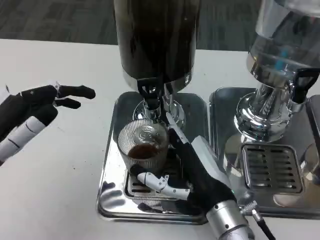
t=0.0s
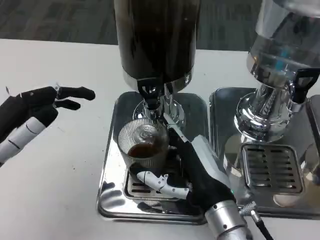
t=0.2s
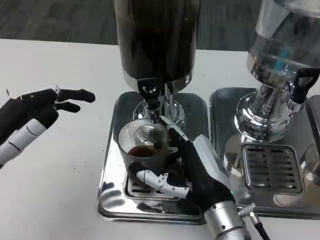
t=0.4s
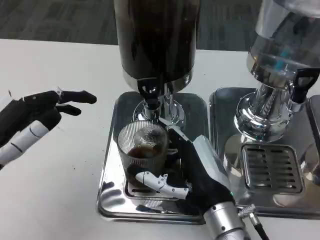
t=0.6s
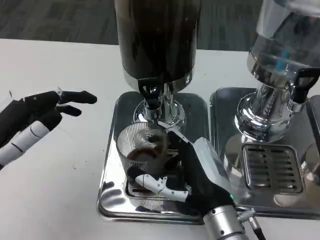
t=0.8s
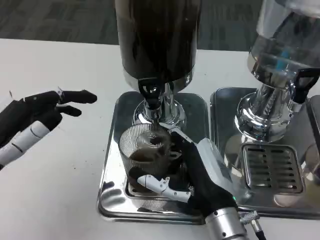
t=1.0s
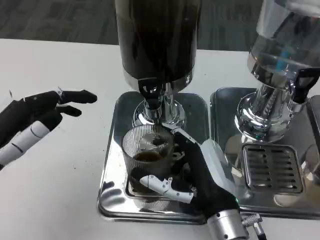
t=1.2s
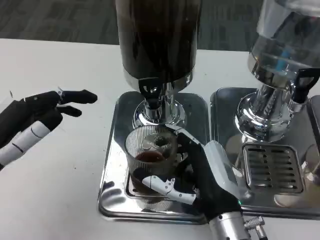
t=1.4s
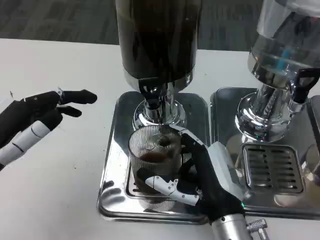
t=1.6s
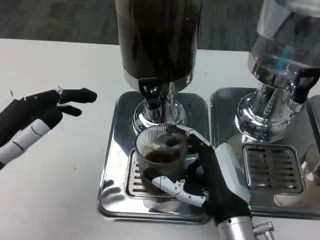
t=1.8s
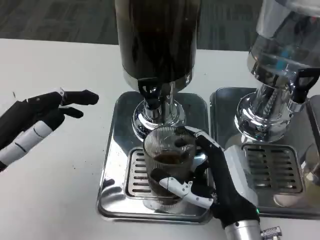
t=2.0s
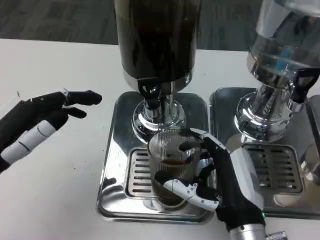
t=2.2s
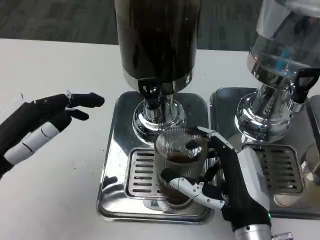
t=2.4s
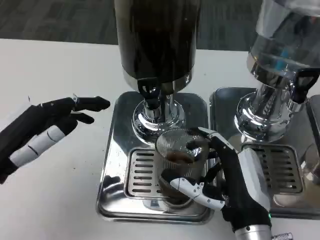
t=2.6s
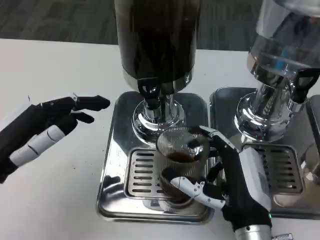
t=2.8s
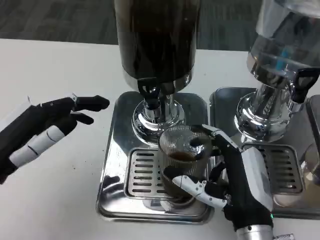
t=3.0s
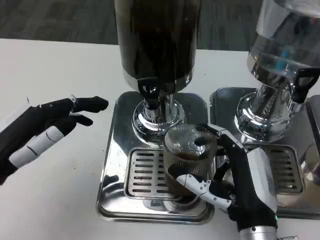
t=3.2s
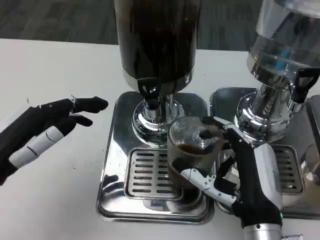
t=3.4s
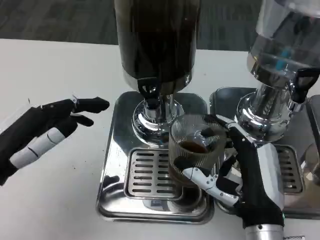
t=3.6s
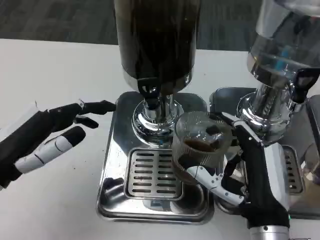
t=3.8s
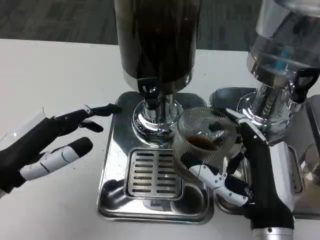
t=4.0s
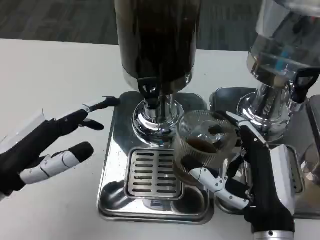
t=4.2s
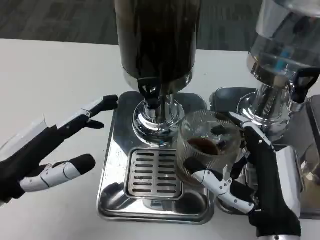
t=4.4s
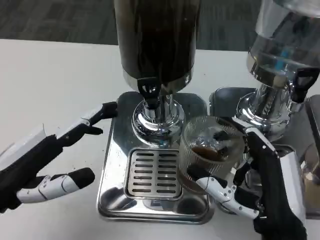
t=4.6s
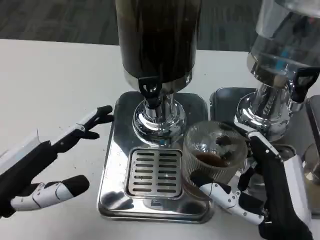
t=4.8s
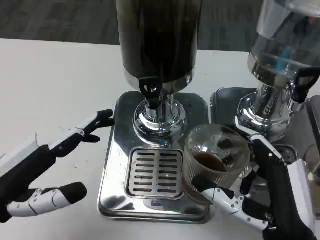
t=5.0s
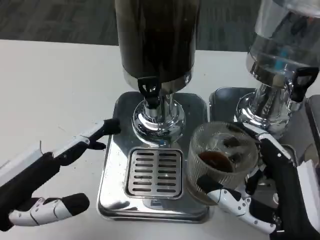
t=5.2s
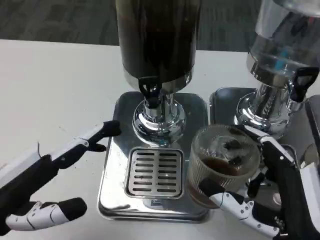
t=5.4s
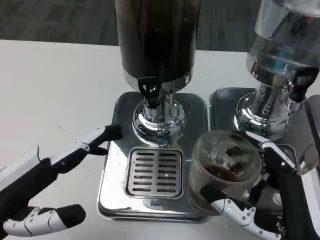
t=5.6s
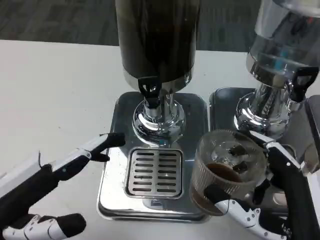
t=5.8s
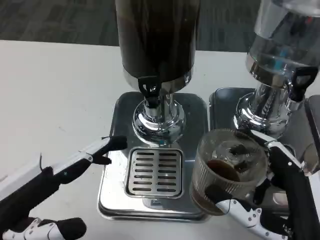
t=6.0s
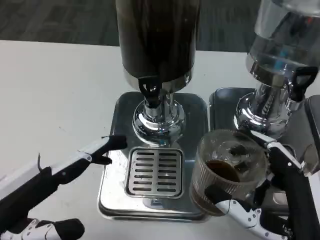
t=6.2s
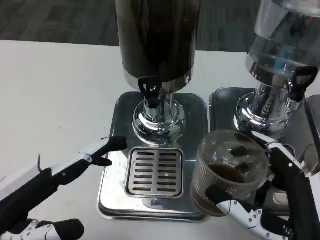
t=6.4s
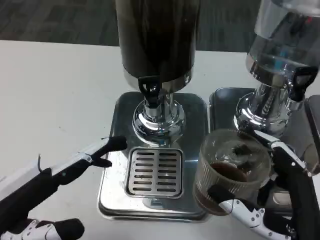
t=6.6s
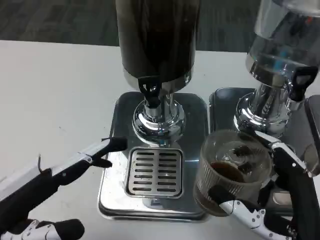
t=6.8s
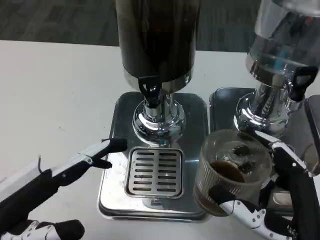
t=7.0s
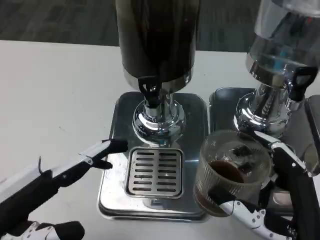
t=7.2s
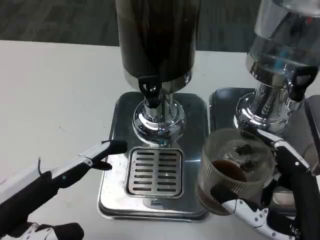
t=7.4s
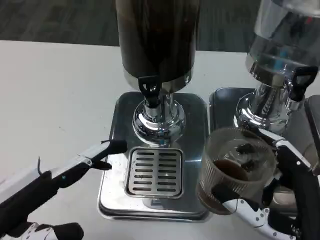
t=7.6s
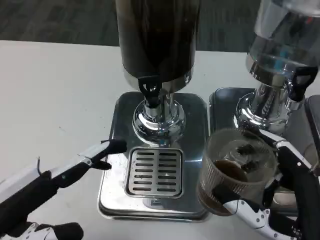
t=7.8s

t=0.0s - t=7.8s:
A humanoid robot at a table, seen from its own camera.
Task of the whole recording: Grasp the cup under the faucet to collect the drink, then remove the cup.
t=0.0s - t=1.6s: There are only small adjustments of the hands.
t=6.2s - t=7.8s: Neither hand changes place.

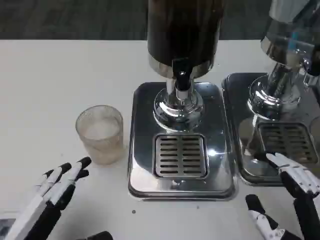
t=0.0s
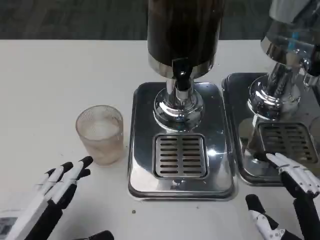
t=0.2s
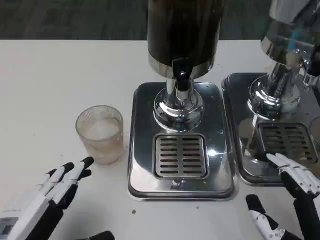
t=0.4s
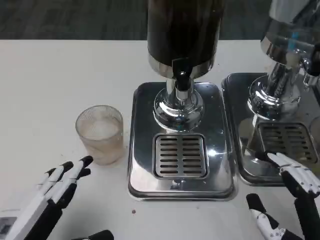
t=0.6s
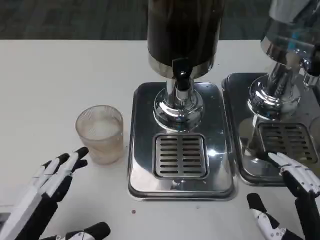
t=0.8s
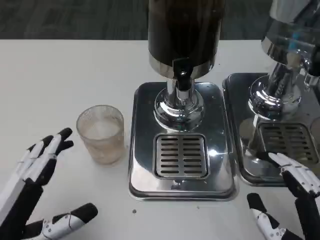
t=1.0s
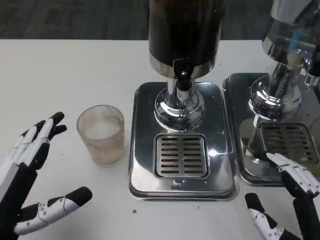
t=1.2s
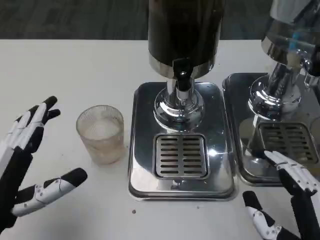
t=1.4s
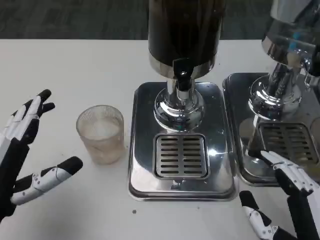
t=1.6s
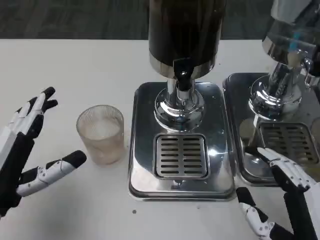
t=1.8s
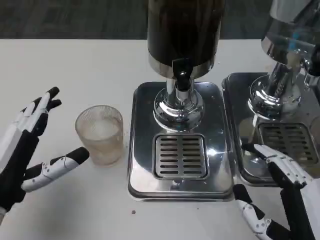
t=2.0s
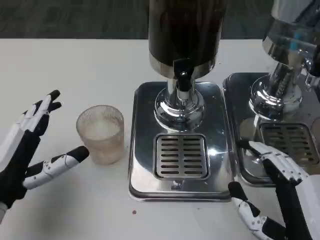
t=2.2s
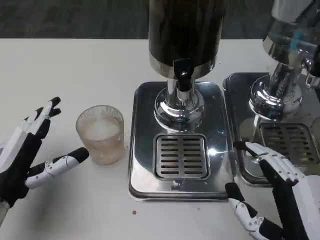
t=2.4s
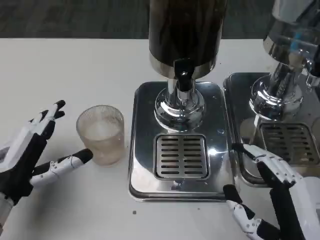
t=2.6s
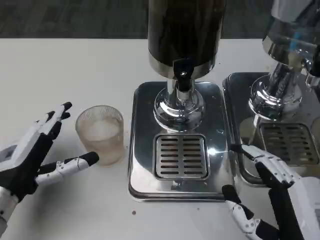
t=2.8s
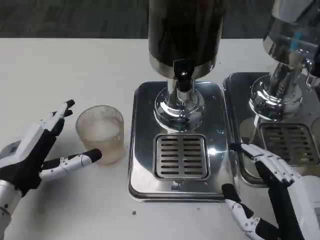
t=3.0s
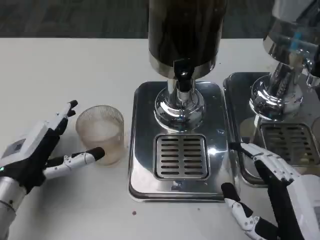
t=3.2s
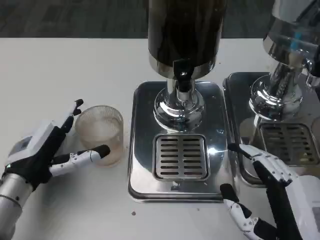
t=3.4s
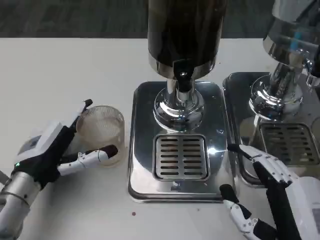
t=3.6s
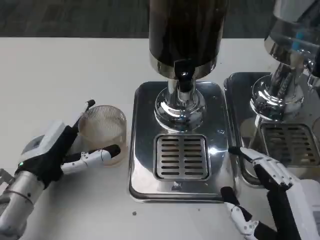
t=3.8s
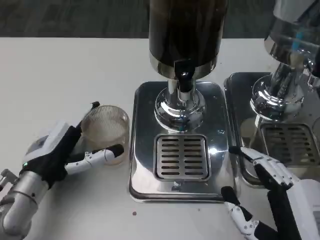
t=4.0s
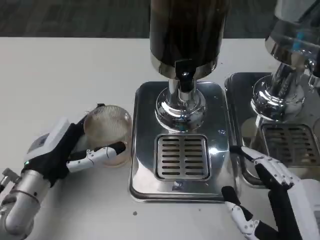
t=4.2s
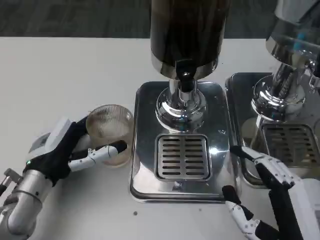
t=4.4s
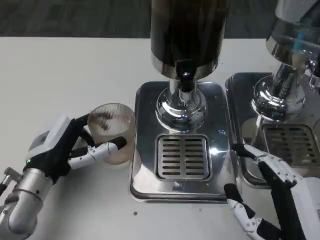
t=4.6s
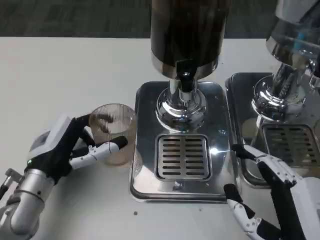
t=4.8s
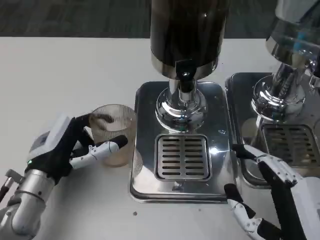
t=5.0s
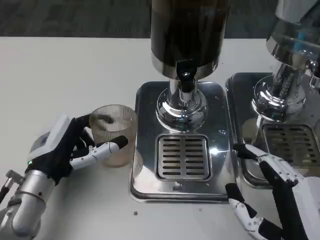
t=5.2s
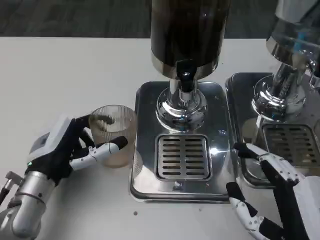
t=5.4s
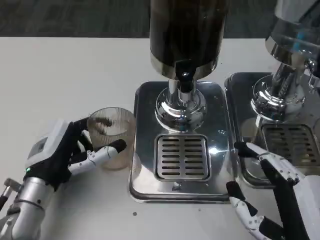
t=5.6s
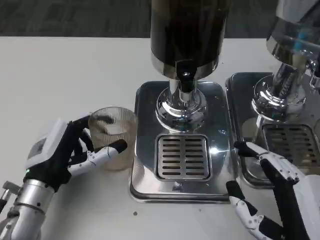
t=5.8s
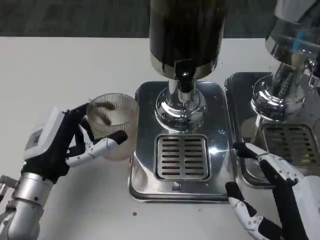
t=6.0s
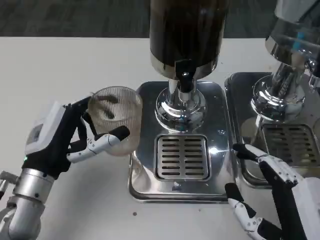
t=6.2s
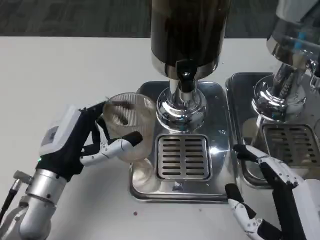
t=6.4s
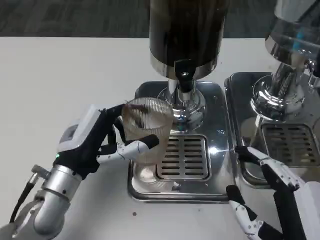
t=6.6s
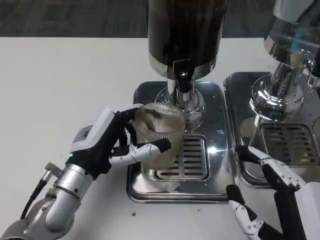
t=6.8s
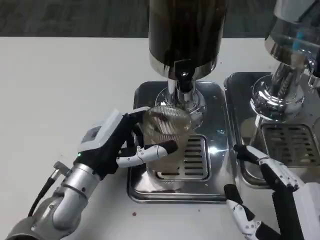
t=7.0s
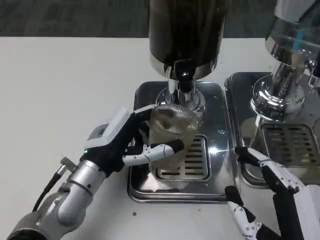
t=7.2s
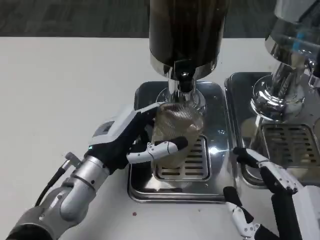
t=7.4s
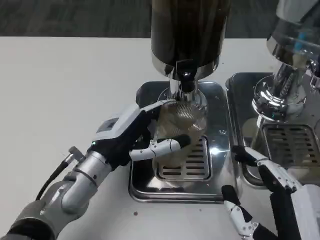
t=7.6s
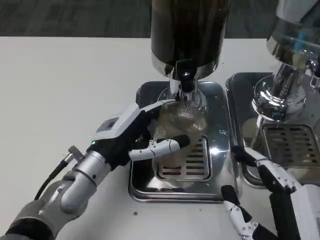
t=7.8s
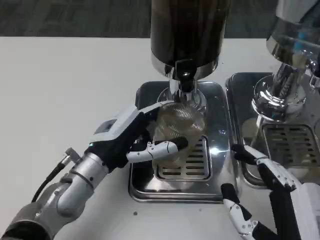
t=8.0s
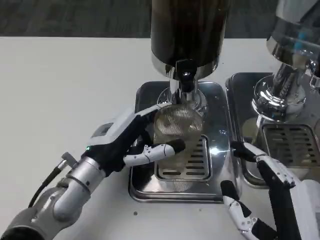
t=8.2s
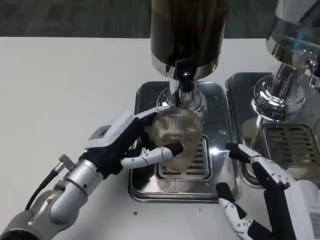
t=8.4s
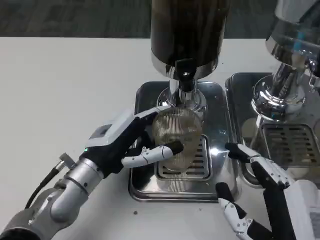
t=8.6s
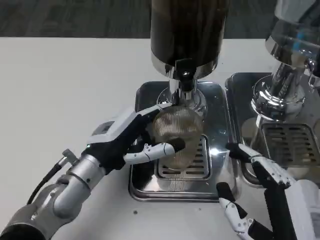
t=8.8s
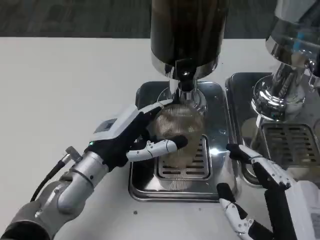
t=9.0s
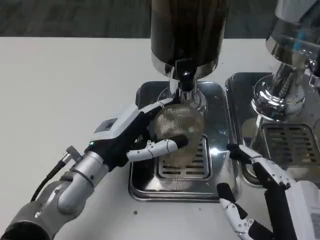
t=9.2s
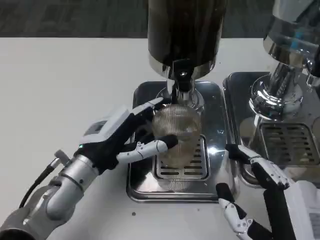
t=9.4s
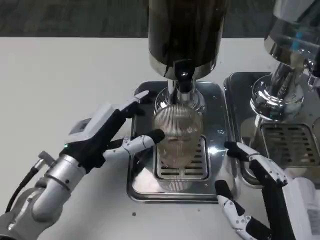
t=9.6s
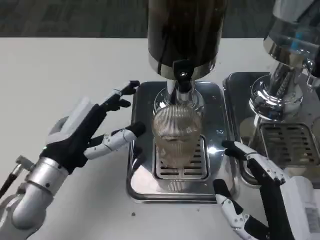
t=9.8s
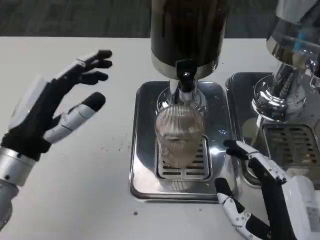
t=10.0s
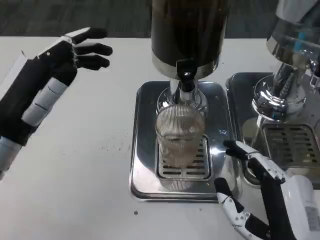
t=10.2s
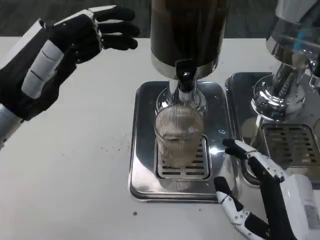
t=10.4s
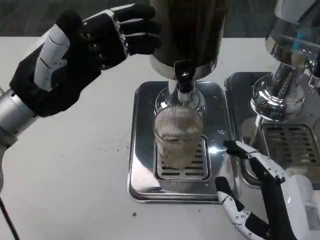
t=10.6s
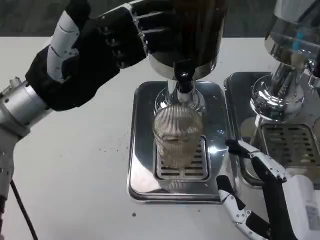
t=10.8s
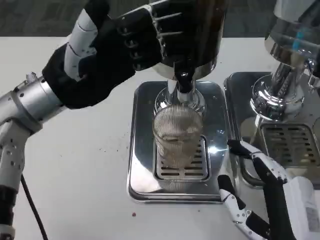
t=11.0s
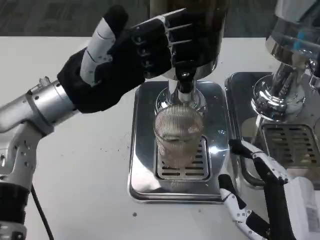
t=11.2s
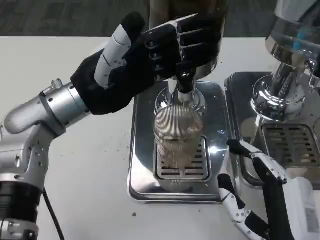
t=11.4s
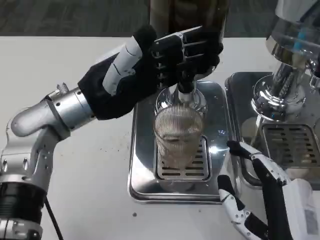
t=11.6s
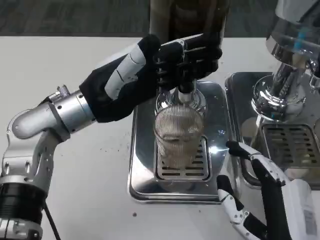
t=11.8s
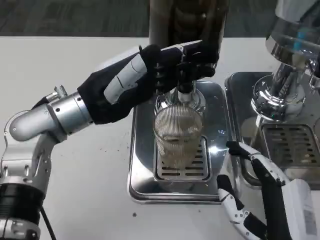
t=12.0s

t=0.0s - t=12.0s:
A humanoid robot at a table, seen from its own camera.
Task of the whole recording: Grasp the cup under the faucet to collect the drink, then remove the cup.
t=0.0s - t=1.6s: The left hand is displaced forward by some 5 cm.
t=1.6s - t=3.0s: The left hand travels forward by about 5 cm.
t=4.4s - t=6.0s: The hands move only a little.
t=6.0s - t=7.6s: The left hand moves to the right, approximately 5 cm.
t=7.6s - t=9.0s: The hands stay close to where they were, moving slightly.
t=9.0s - t=10.4s: The left hand is displaced upward and to the left by some 15 cm.
t=10.4s - t=12.0s: The left hand goes about 5 cm to the right.

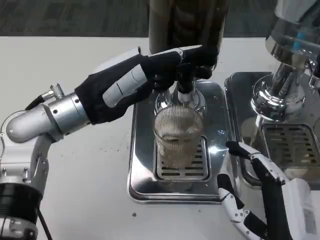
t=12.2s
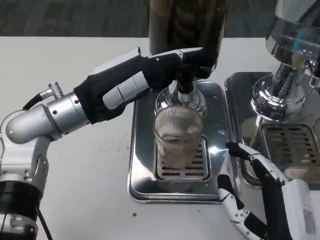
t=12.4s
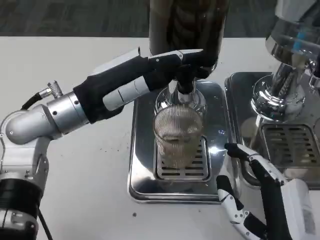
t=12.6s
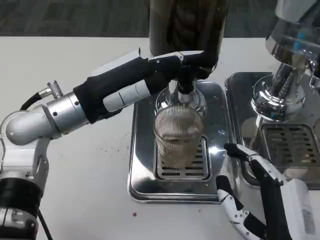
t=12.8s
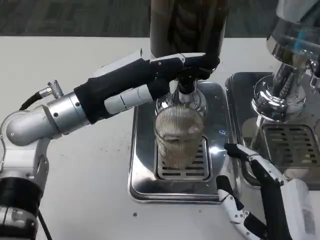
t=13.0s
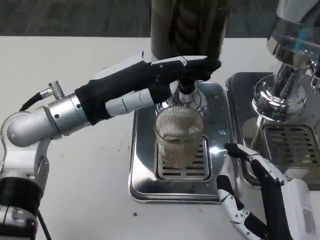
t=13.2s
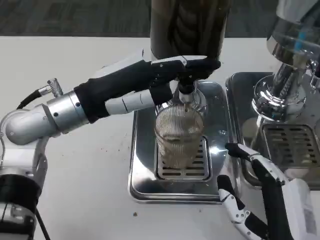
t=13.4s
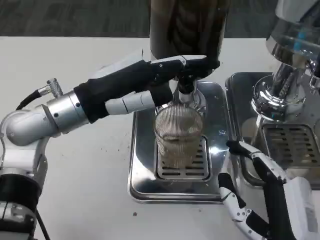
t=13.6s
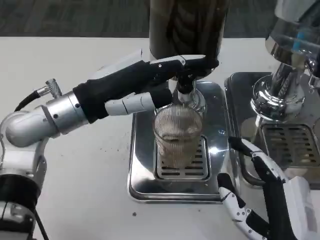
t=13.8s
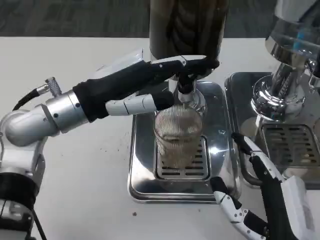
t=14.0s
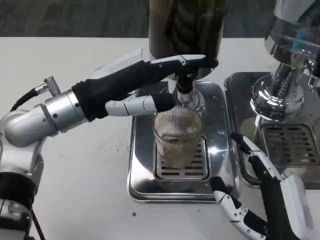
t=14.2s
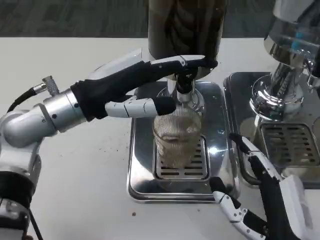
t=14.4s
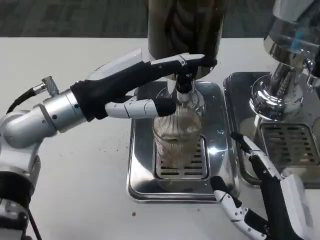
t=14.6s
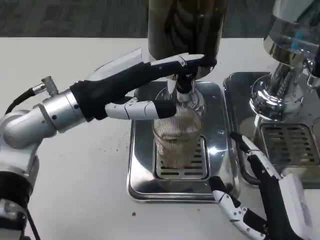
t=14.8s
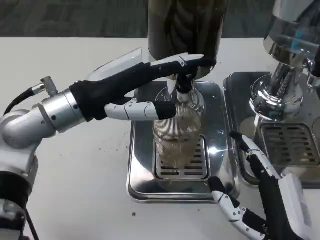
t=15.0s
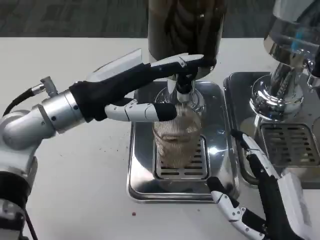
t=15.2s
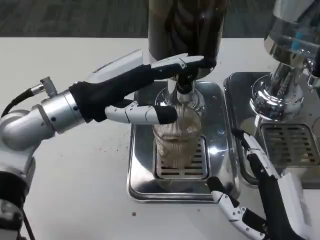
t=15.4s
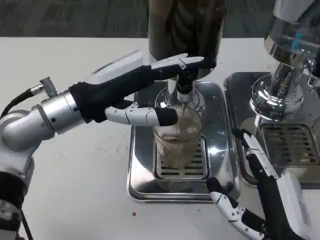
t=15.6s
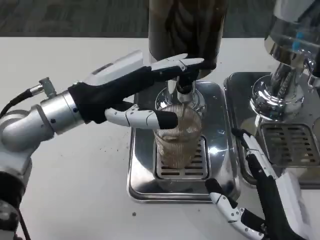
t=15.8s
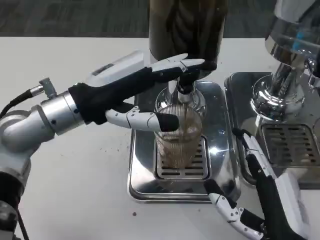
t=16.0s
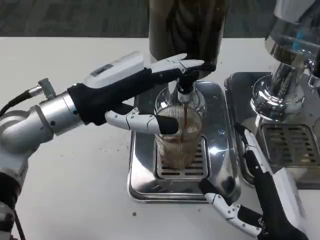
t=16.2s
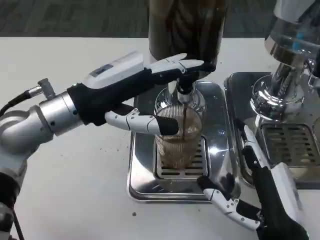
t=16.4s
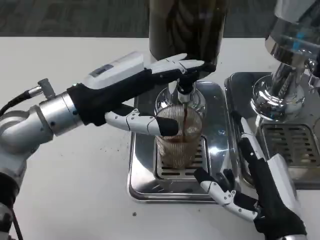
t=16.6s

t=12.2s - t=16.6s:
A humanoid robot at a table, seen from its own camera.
Task of the whole recording: Grasp the cup under the faucet to collect the drink, then remove the cup.
t=12.2s - t=13.6s: The hands make only small movements.
